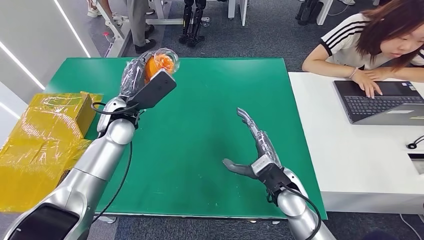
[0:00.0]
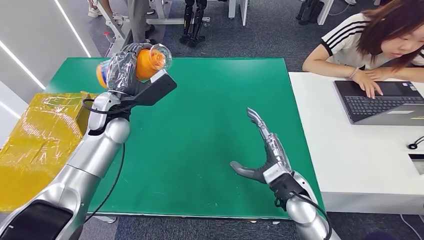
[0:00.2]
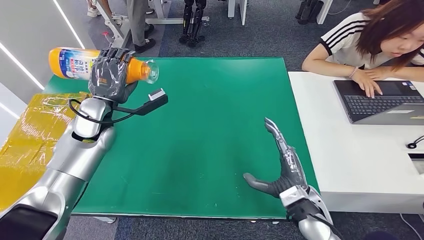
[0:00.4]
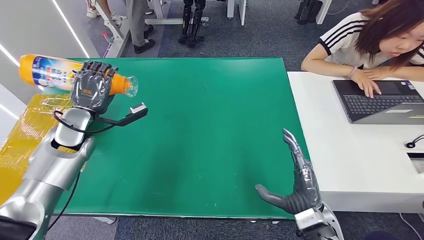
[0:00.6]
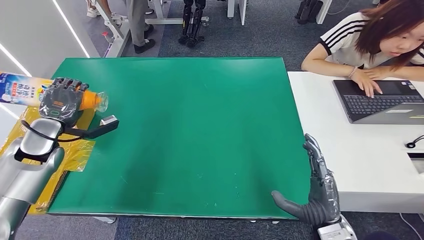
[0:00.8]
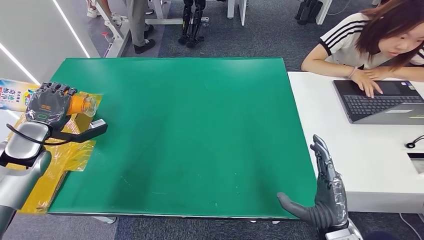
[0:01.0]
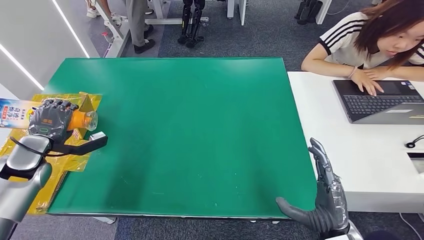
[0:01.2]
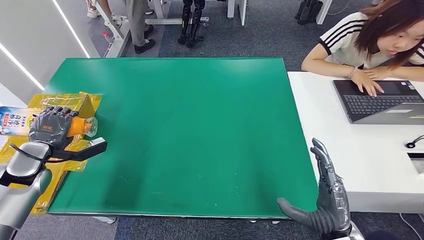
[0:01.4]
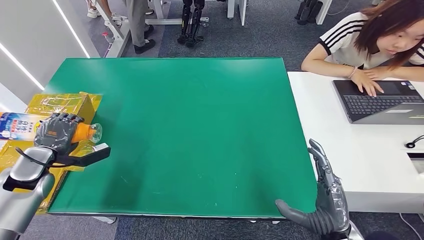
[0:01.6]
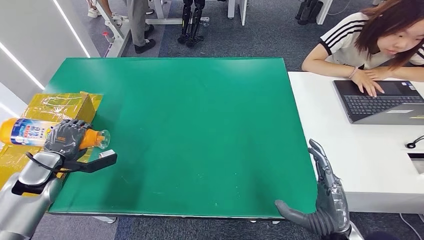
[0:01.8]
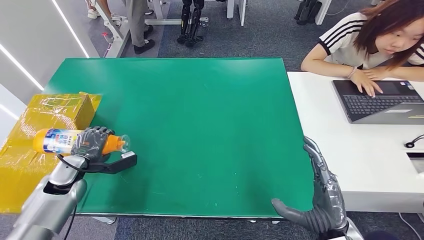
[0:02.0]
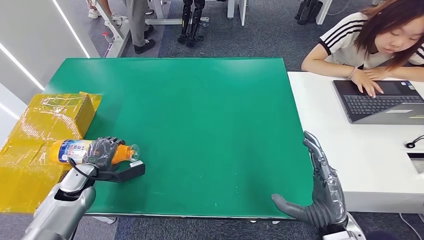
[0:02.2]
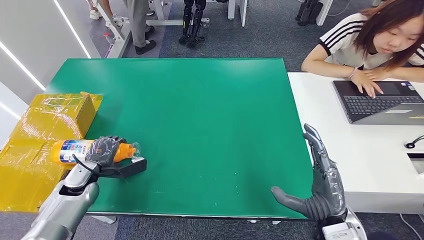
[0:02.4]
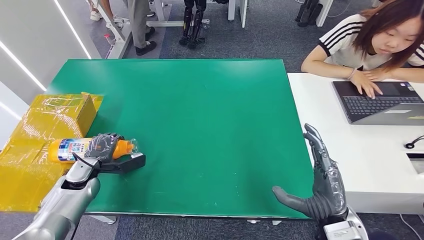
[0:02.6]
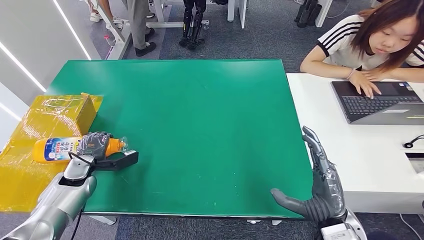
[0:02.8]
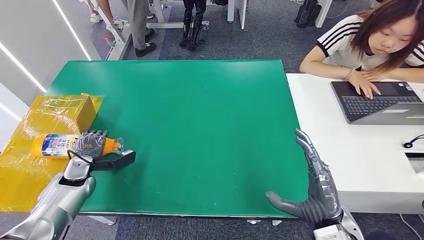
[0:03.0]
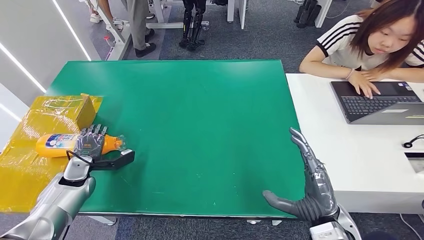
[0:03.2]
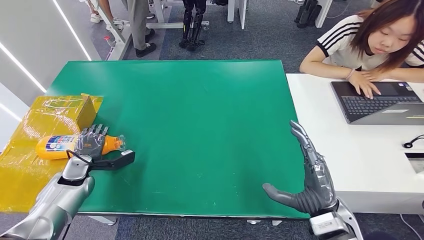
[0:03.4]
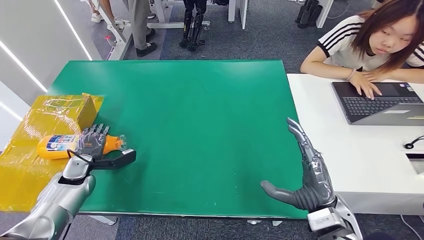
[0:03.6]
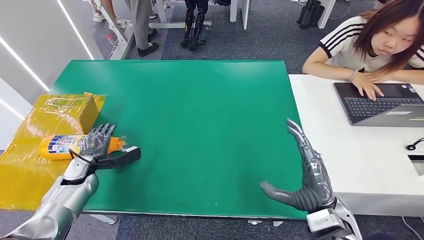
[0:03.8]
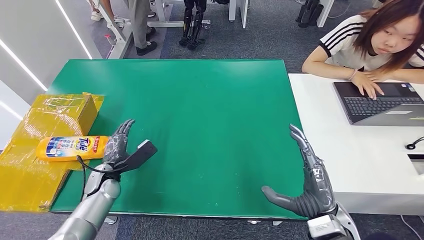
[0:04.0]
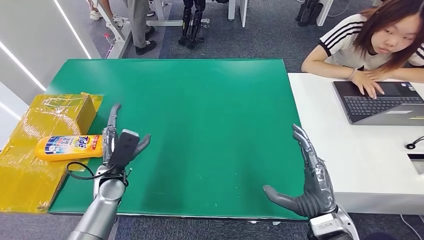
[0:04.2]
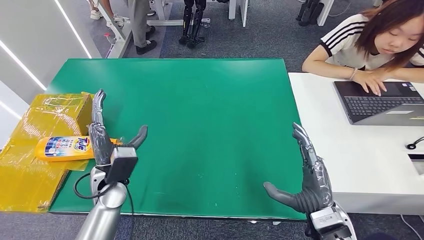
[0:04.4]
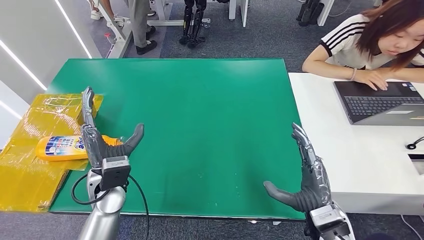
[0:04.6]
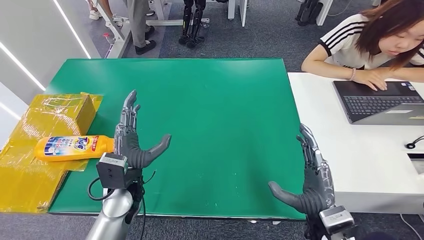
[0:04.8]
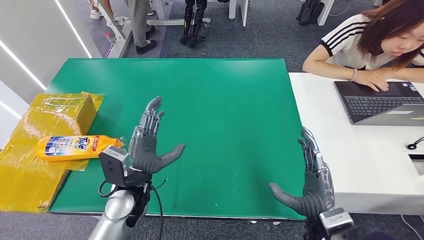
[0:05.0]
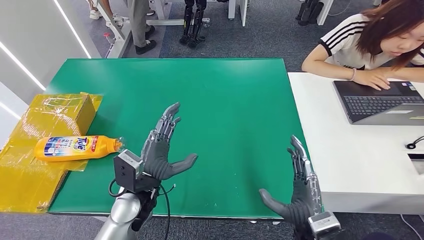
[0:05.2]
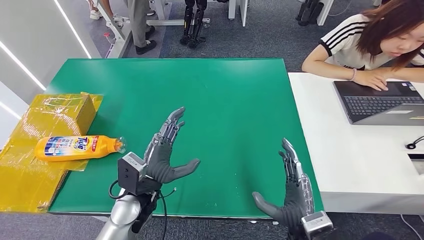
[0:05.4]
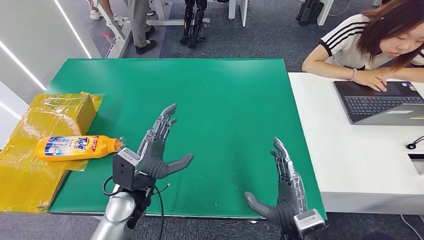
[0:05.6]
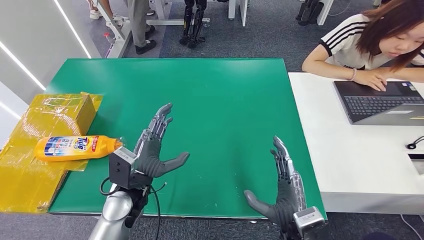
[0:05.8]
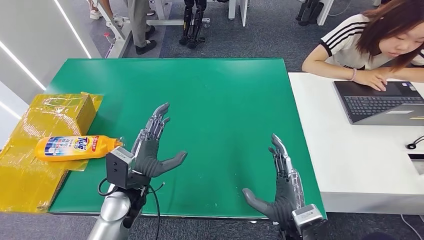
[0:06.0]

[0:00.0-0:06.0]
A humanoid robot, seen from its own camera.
Step, 0:00.0 to 0:06.0: Turn the bottle to the front side.
0:04.4 to 0:06.0: The right hand moves to the left, about 5 cm, while the left hand travels to the right by some 5 cm.
